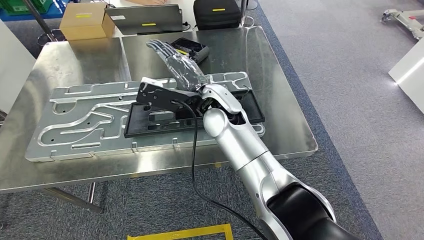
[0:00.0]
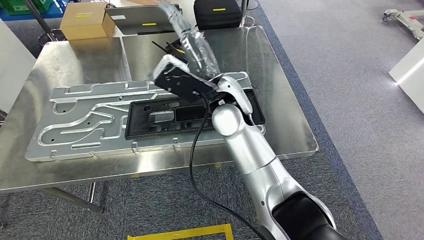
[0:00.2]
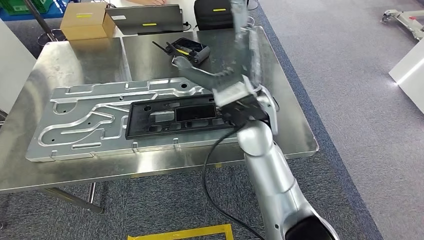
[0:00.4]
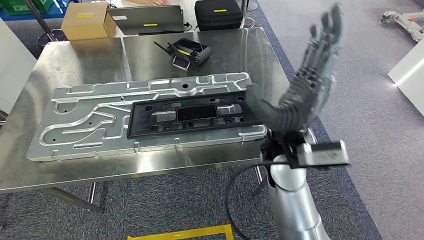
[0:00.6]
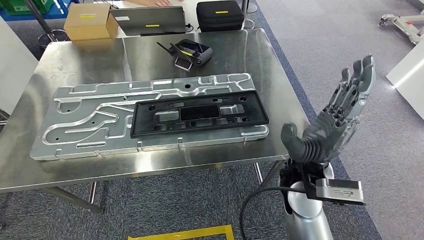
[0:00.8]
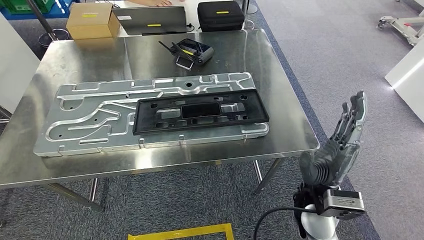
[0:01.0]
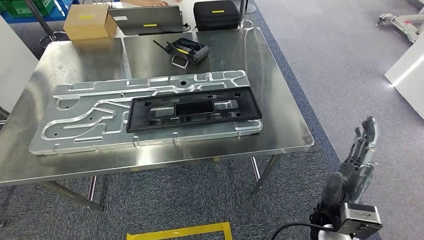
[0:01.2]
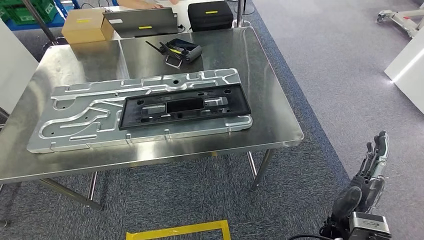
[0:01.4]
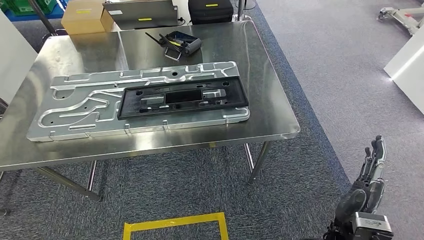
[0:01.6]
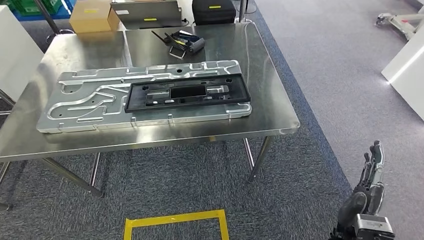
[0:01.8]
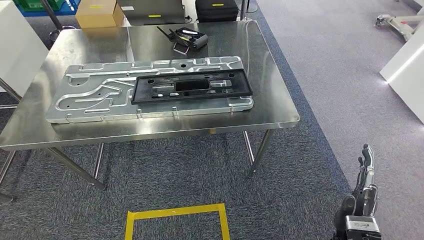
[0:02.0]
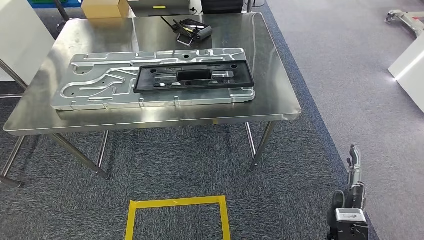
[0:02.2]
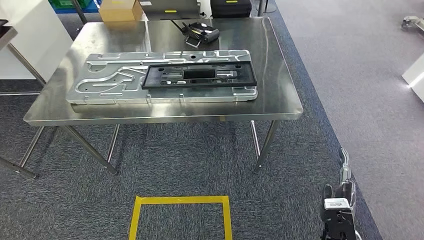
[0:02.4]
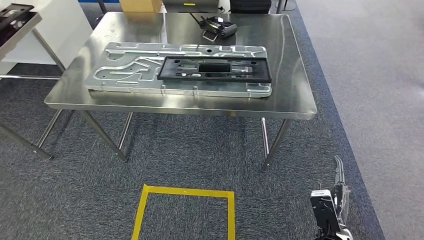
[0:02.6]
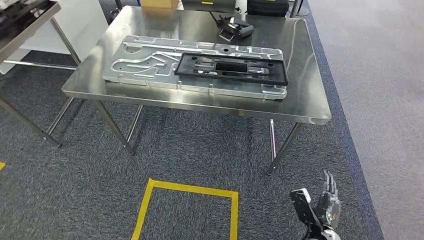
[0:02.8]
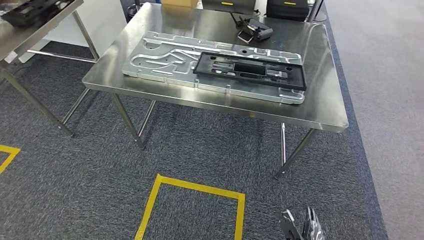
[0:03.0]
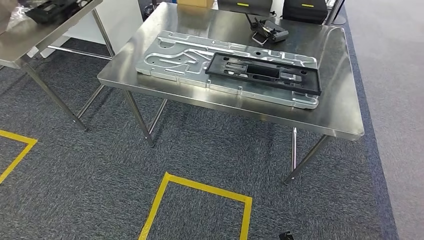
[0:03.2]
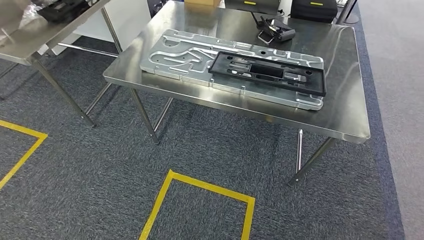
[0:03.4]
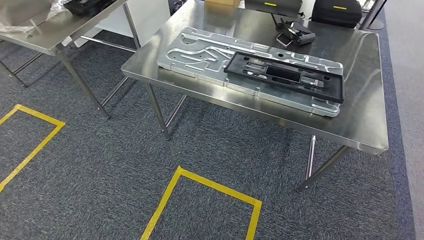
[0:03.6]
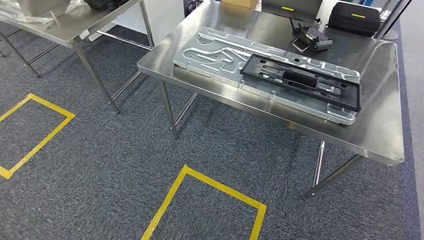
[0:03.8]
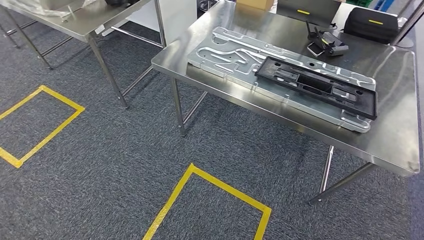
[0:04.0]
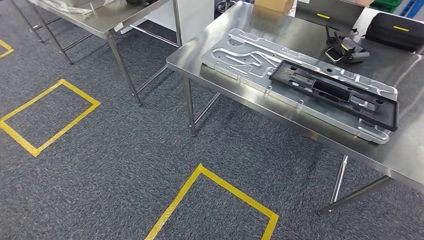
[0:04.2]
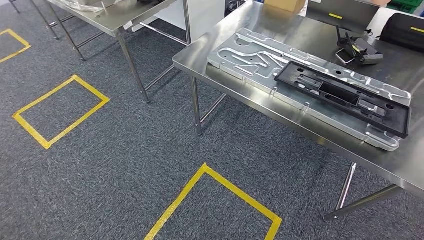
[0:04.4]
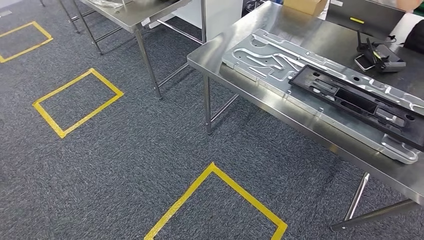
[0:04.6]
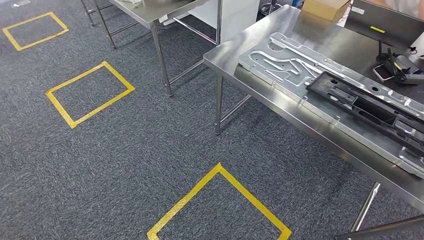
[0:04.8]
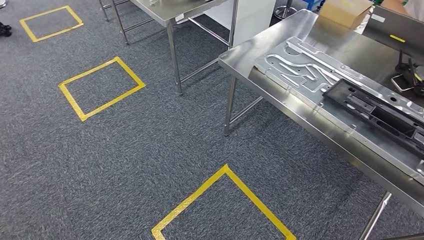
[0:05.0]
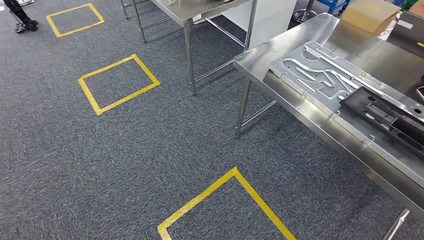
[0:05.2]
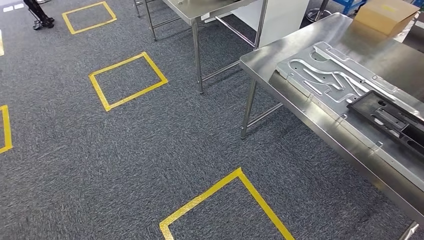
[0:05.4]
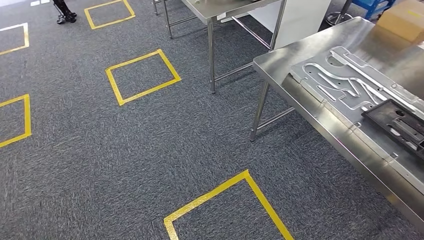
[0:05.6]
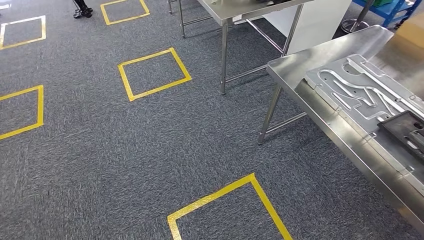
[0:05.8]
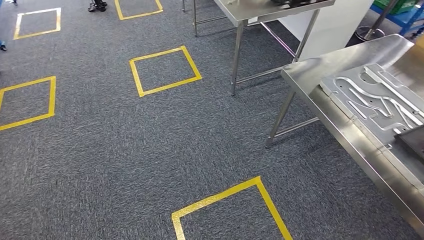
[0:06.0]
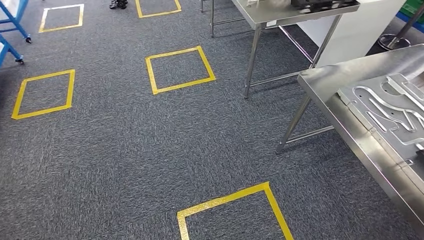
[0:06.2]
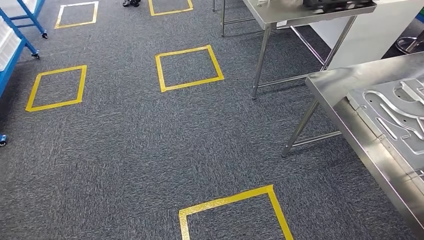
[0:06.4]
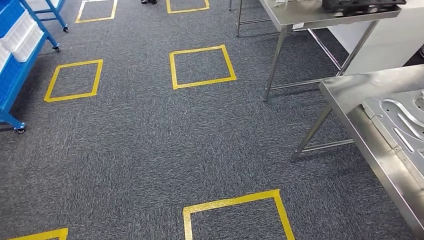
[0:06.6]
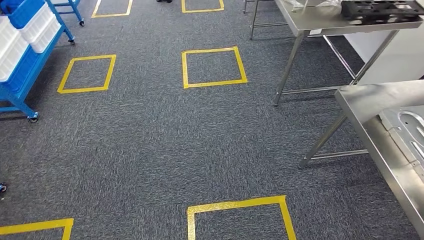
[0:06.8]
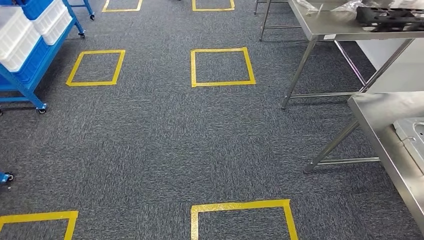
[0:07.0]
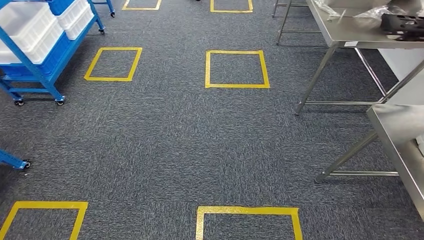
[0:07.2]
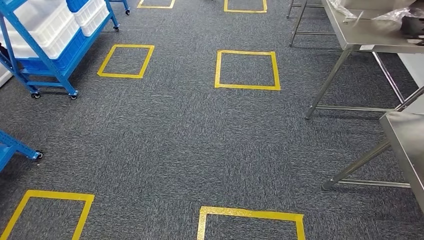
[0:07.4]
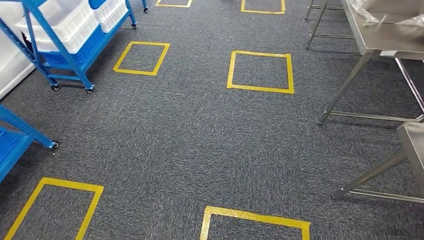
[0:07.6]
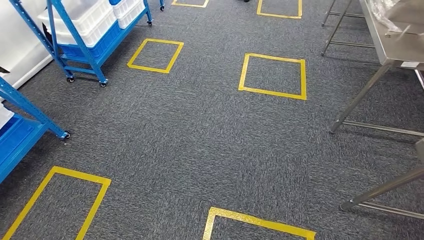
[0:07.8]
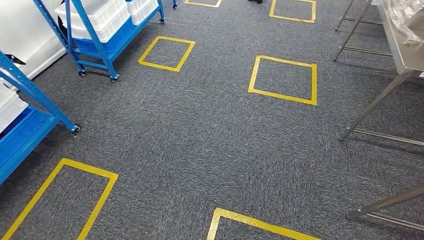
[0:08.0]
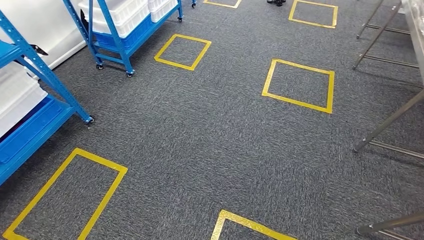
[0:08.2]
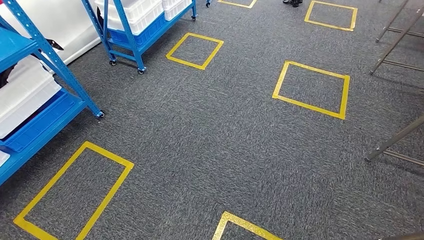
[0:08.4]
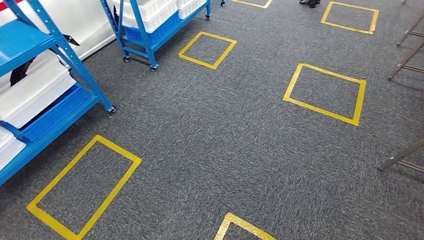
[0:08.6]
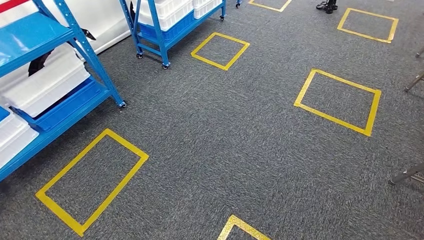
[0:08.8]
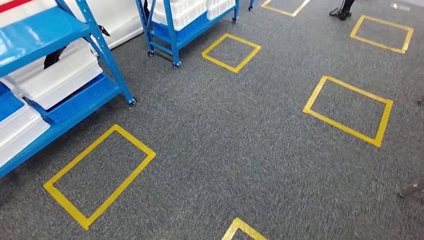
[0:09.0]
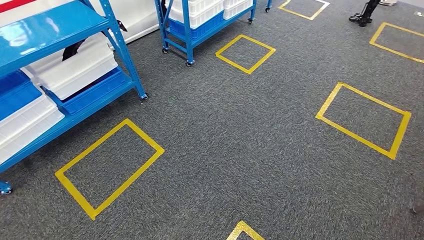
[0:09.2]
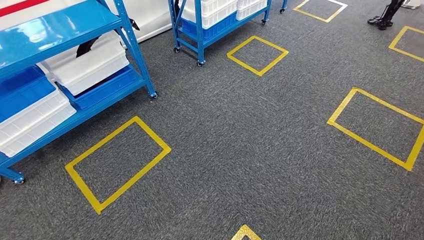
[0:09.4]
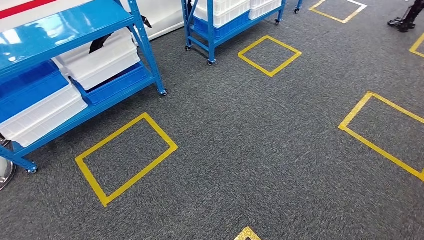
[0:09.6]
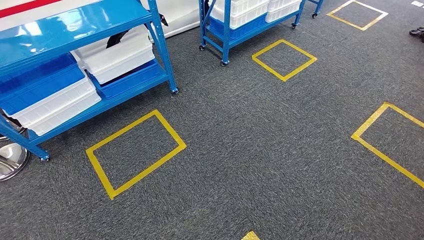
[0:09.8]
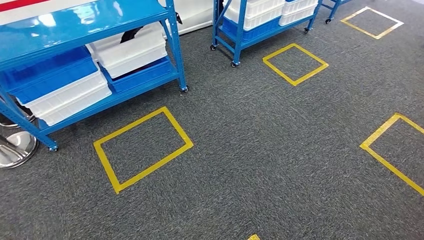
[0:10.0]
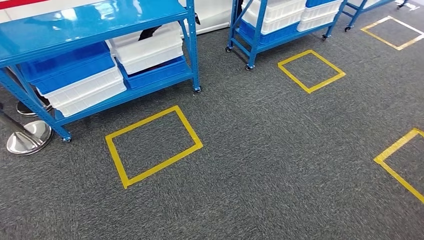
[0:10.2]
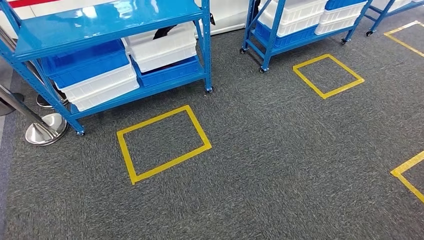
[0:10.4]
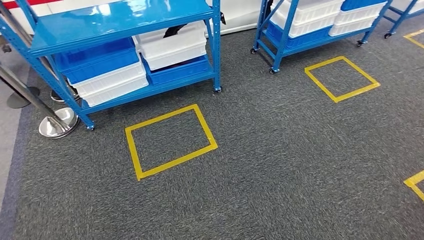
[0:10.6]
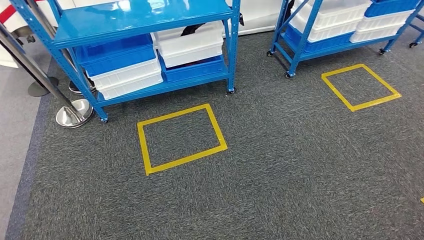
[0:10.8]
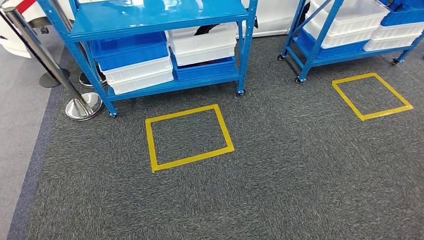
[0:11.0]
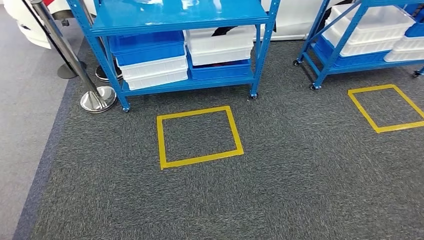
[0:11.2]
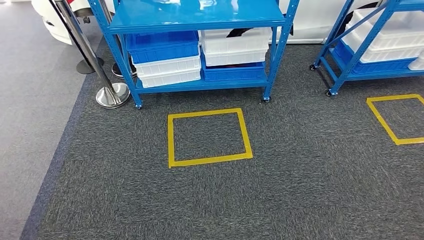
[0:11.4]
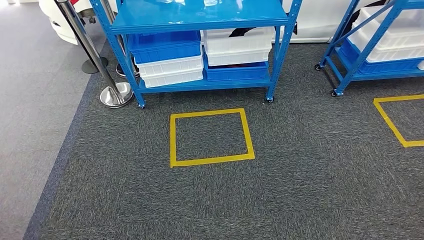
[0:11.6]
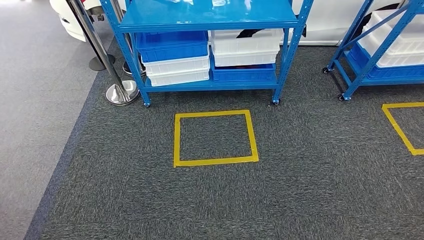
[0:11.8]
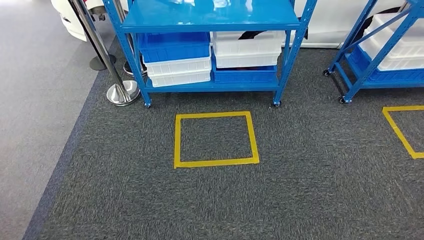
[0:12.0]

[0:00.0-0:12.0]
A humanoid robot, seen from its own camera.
Step, 0:00.0 to 0:03.2: Insert the large material into the corresponding slot on the workbench.

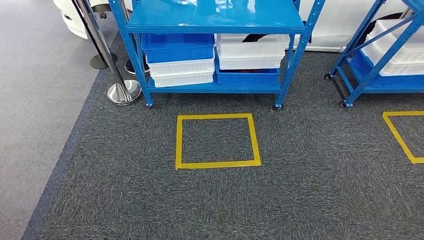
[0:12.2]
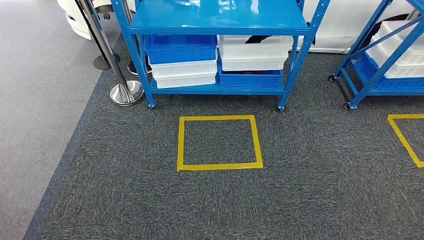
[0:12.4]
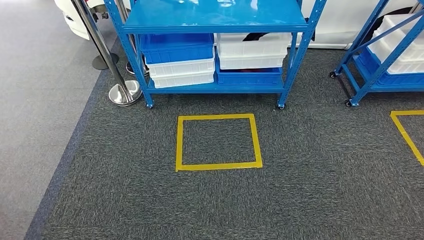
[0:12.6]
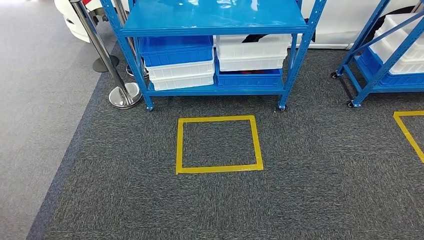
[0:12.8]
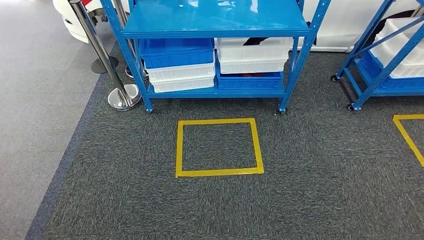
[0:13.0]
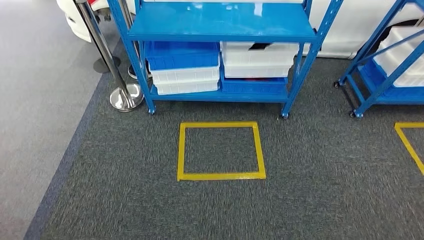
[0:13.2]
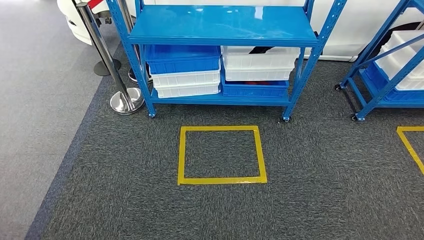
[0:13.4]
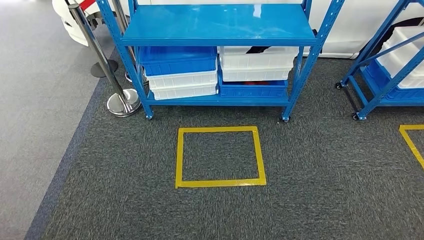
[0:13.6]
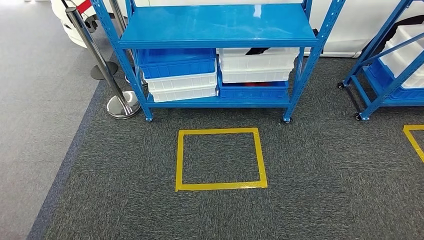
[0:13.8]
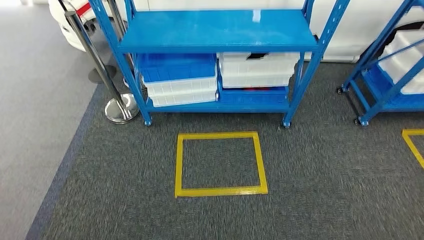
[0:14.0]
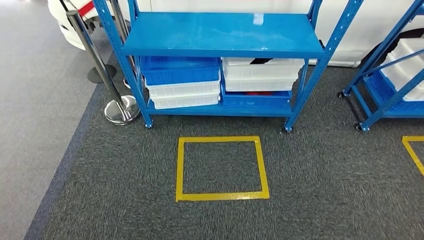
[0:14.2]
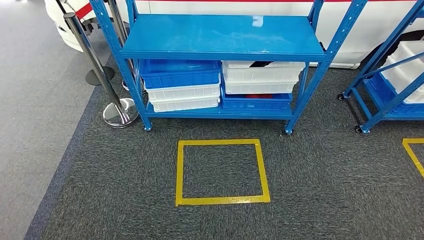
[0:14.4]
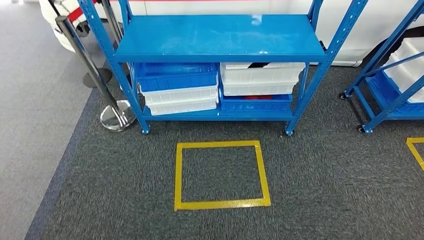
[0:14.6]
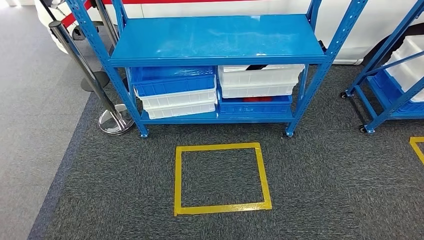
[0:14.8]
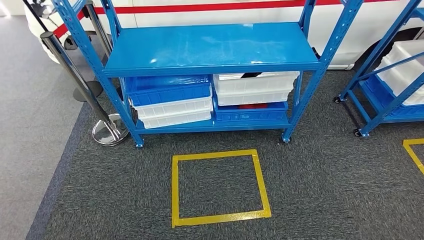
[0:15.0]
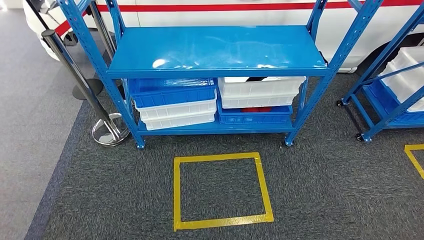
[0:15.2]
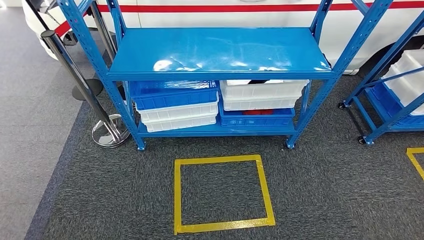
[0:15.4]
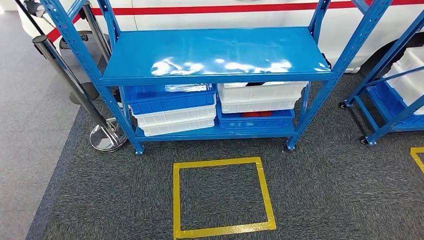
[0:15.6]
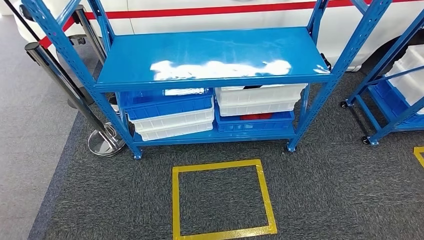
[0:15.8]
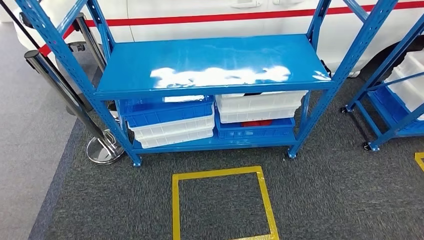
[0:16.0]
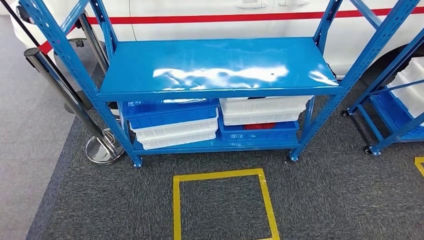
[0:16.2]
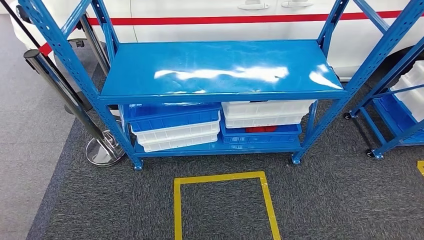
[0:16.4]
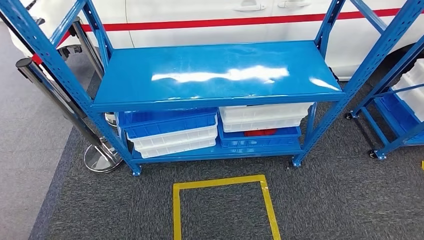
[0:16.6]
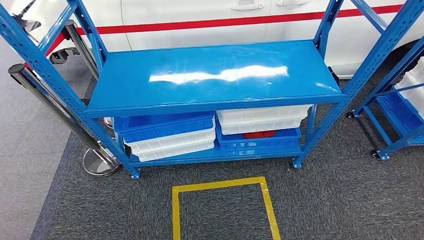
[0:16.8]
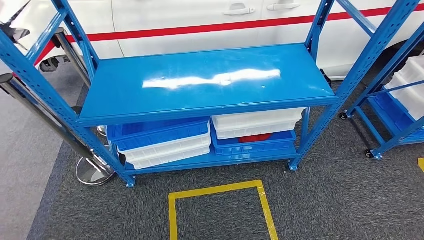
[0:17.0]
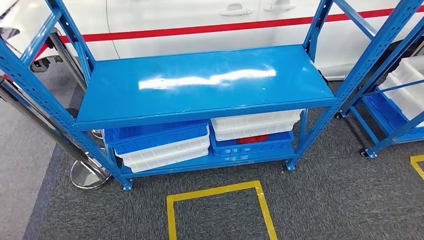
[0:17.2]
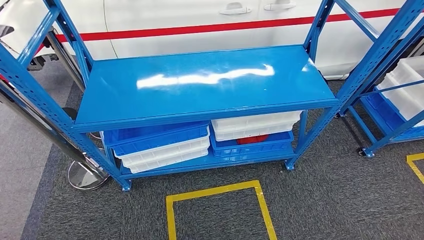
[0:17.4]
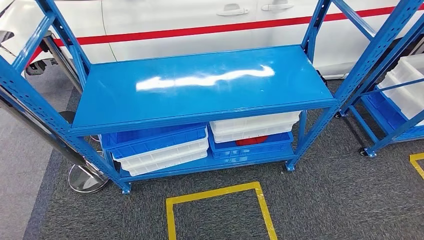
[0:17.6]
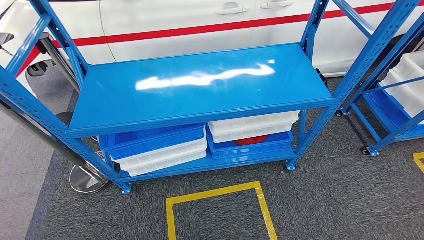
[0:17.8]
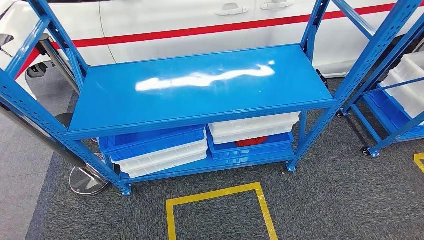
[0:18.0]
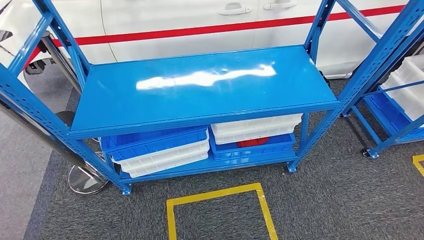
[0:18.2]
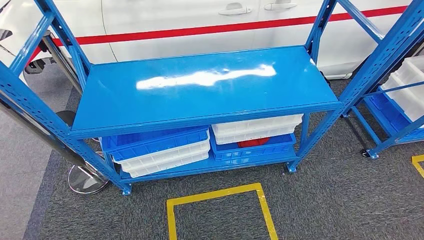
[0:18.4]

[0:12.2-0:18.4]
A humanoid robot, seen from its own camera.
Step, 0:12.2 to 0:18.4: Move to the initial position of the shelf.
